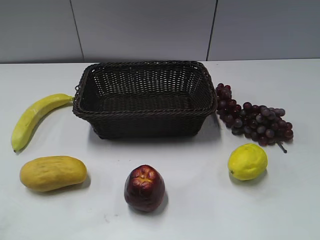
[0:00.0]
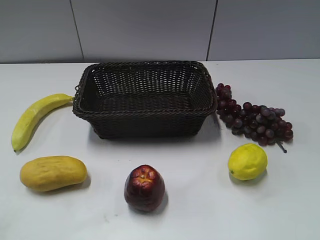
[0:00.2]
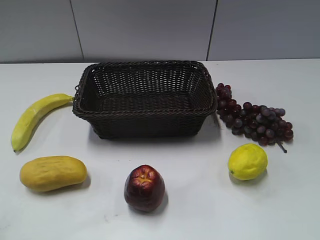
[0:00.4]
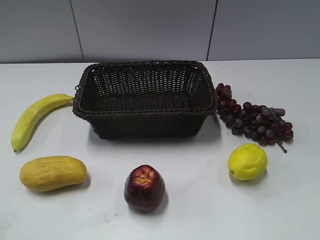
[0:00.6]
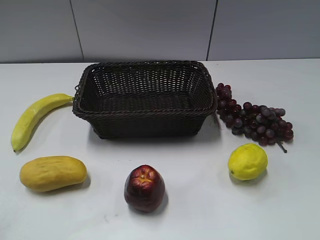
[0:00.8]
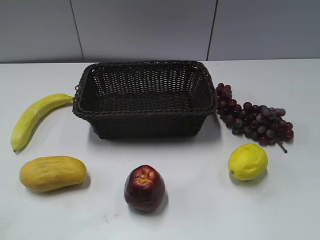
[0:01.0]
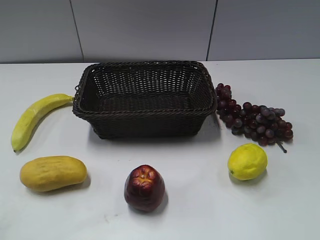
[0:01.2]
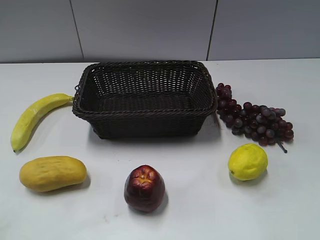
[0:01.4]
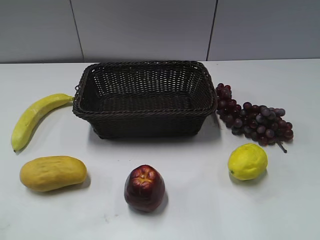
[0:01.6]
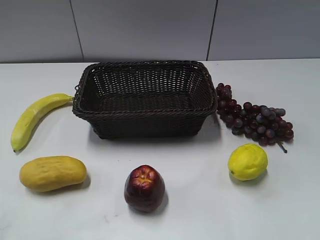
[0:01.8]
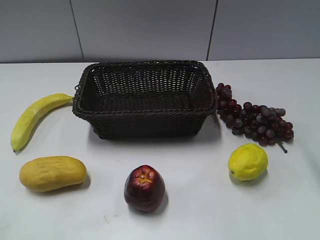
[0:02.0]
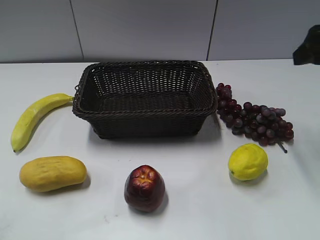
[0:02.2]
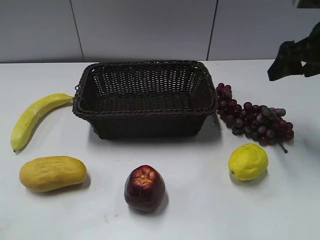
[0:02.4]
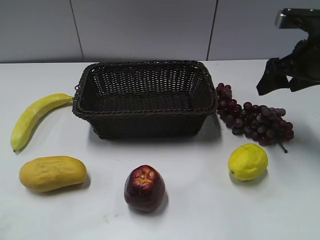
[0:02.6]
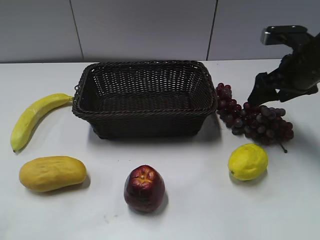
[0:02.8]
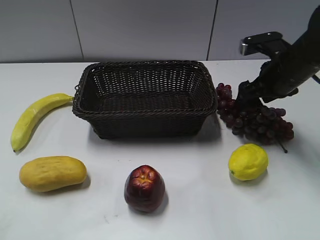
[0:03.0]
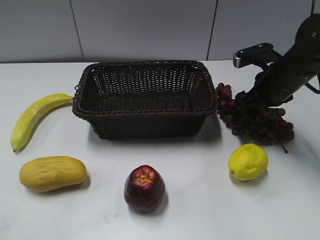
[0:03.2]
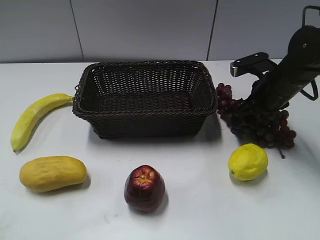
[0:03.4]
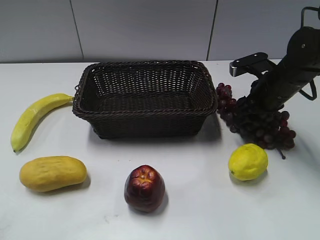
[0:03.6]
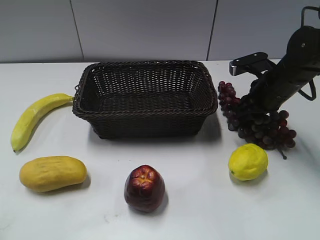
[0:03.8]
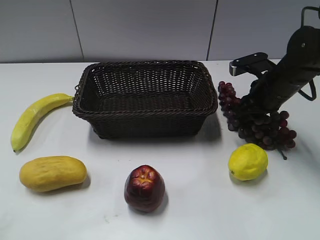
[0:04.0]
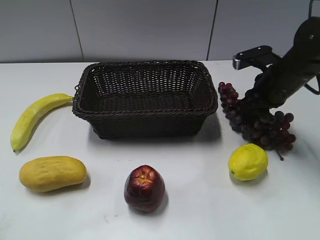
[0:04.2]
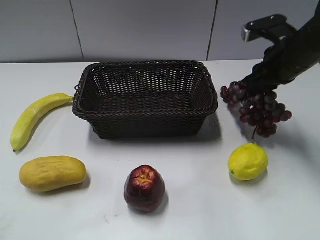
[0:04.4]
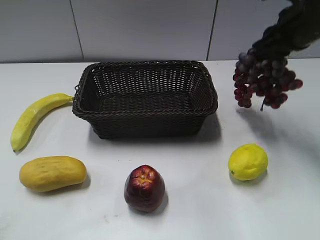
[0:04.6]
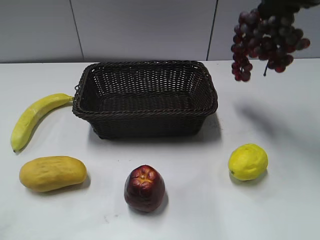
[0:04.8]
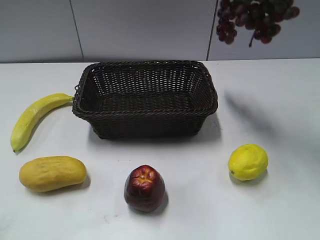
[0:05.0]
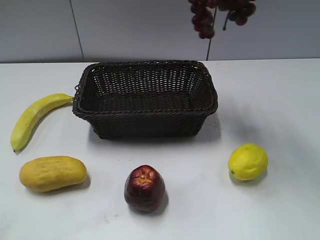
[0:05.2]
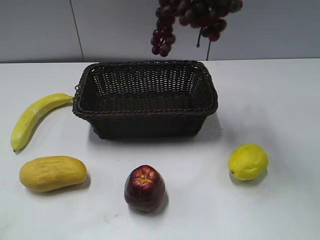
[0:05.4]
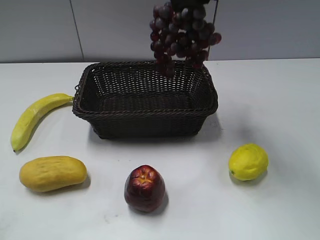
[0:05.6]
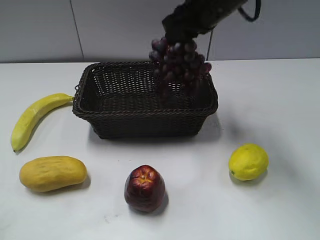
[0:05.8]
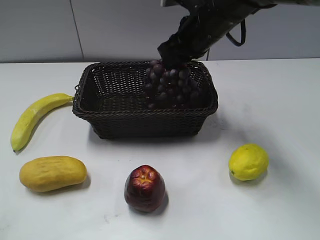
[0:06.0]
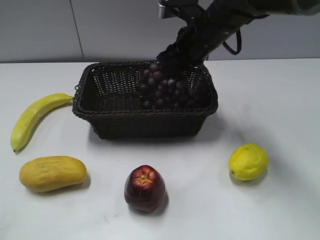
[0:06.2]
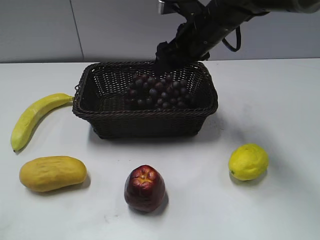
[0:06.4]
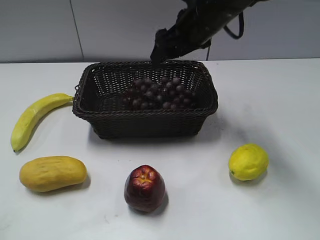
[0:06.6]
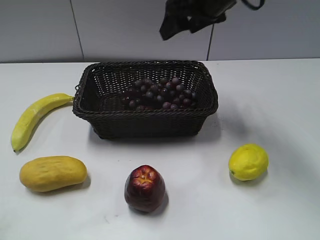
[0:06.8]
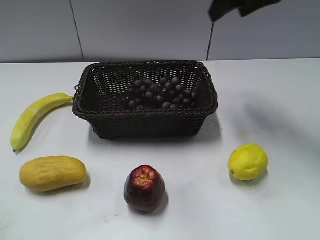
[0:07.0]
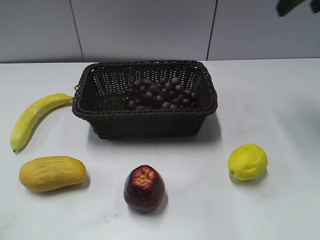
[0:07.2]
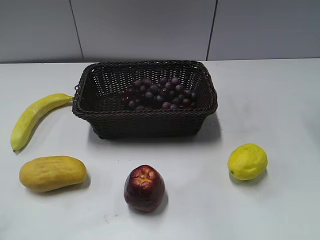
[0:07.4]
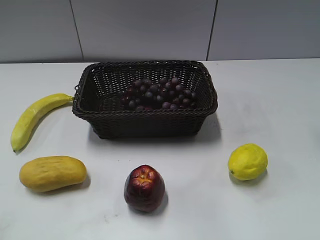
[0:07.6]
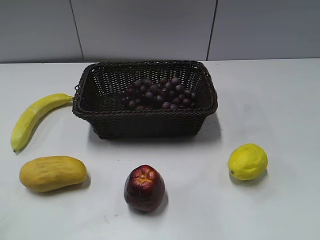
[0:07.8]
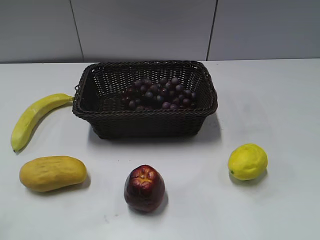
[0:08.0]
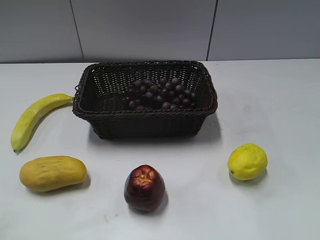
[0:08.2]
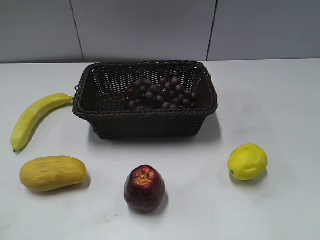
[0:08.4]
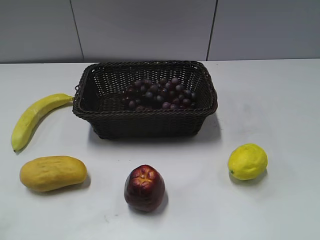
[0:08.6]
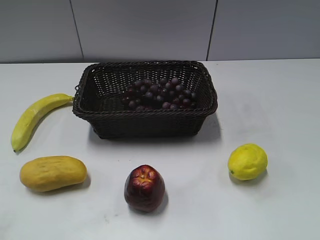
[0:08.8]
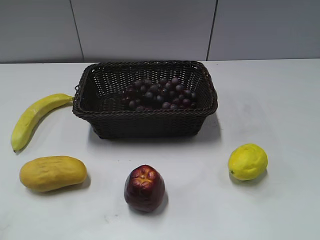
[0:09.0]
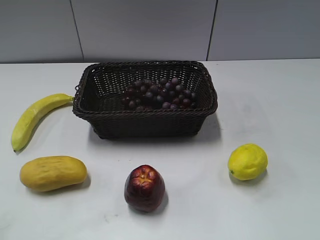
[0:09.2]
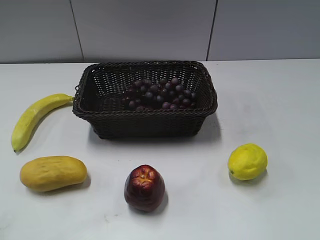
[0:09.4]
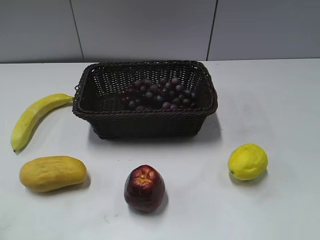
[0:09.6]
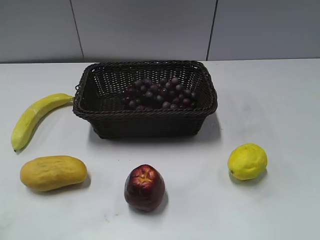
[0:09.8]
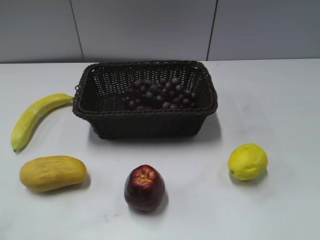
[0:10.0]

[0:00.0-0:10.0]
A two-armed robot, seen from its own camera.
Step, 0:02.2 to 0:03.6: Grasp the grape with right gripper.
Step, 0:03.8 to 0:06.4: Place the grape in the basket with right gripper.
0:01.4 to 0:02.8: The right gripper shifts some 35 cm forward and downward.
0:02.8 to 0:04.2: The right gripper closes up.
0:04.2 to 0:05.8: The right gripper heads to the left and upward, covering roughly 20 cm.
0:05.8 to 0:07.2: The right gripper heads to the right and upward, covering approximately 20 cm, and opens.
0:07.2 to 0:08.6: The right gripper heads backward, covering some 35 cm.

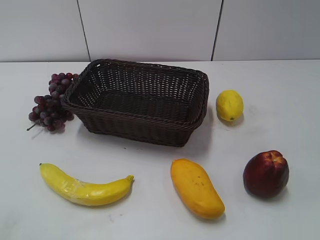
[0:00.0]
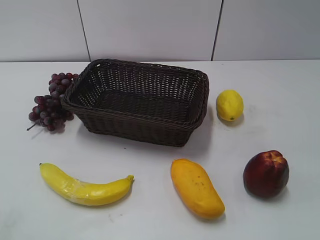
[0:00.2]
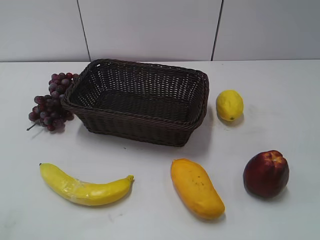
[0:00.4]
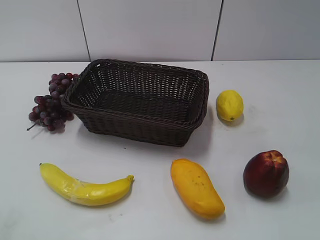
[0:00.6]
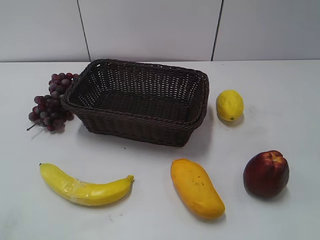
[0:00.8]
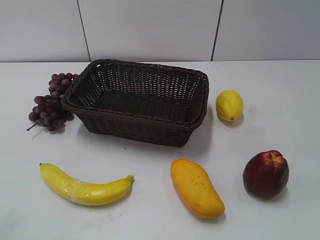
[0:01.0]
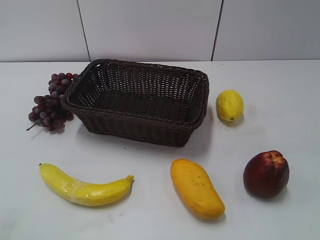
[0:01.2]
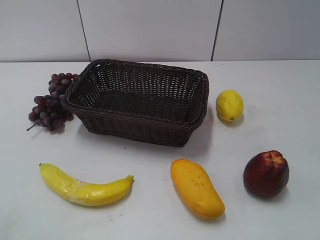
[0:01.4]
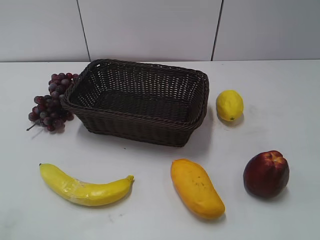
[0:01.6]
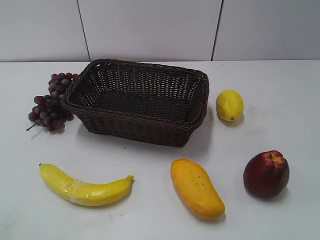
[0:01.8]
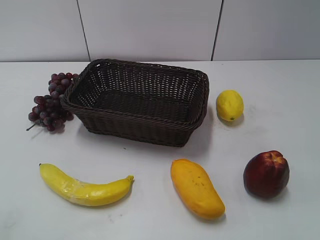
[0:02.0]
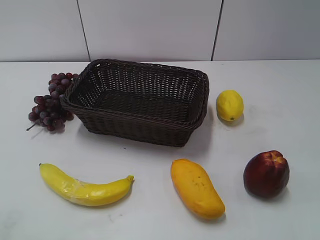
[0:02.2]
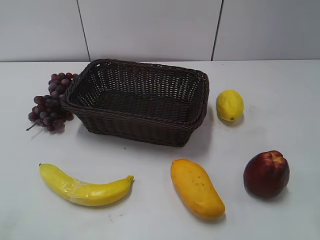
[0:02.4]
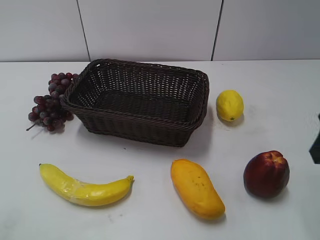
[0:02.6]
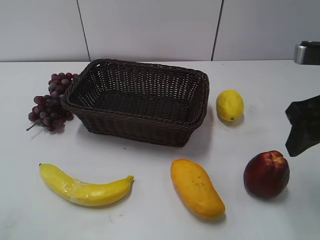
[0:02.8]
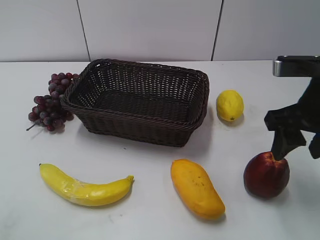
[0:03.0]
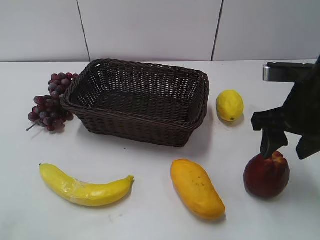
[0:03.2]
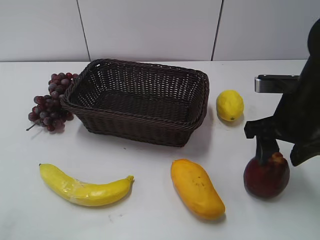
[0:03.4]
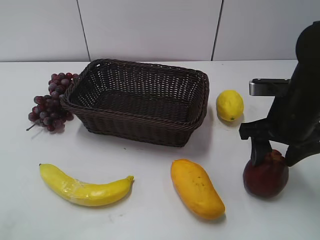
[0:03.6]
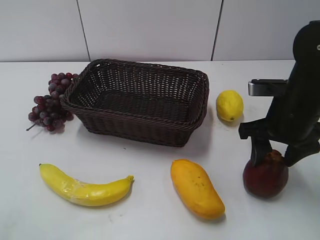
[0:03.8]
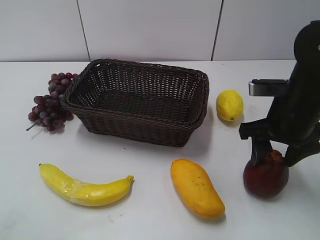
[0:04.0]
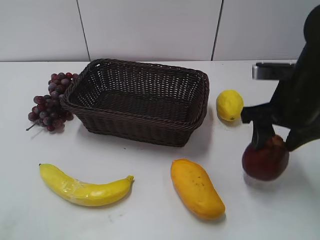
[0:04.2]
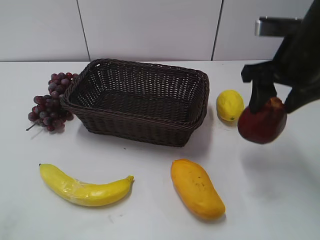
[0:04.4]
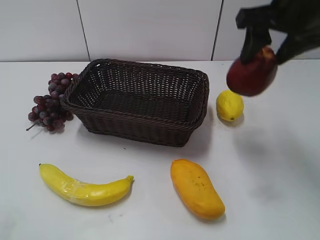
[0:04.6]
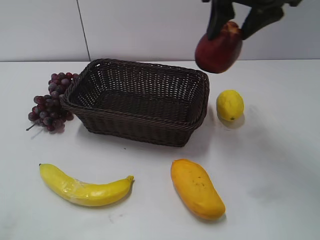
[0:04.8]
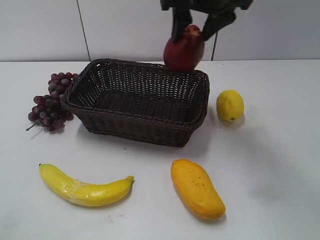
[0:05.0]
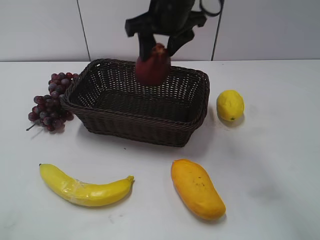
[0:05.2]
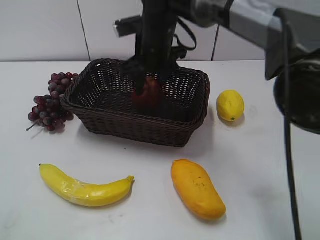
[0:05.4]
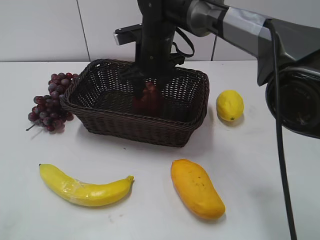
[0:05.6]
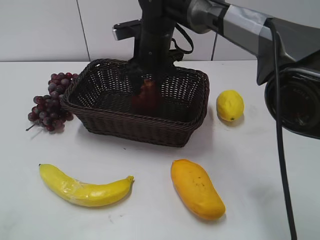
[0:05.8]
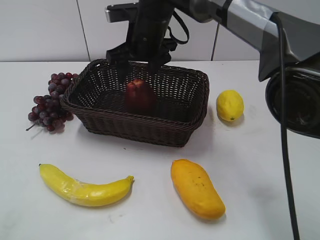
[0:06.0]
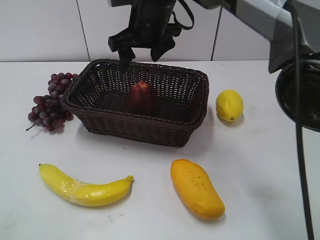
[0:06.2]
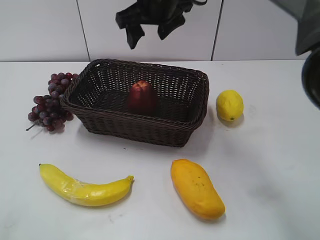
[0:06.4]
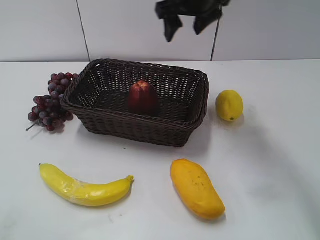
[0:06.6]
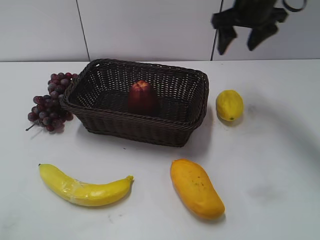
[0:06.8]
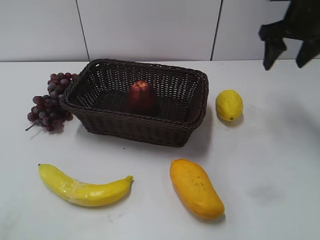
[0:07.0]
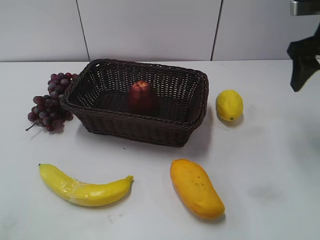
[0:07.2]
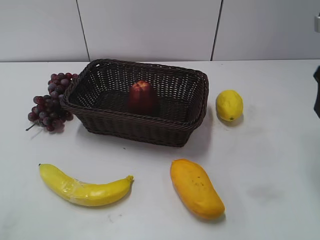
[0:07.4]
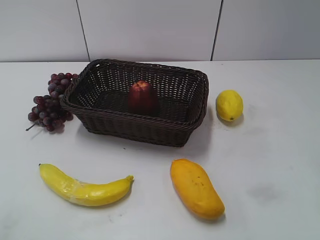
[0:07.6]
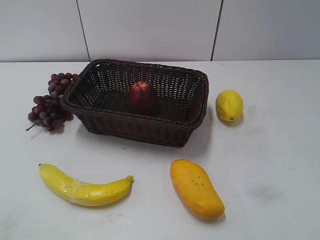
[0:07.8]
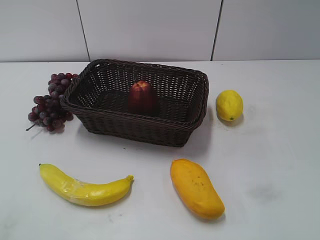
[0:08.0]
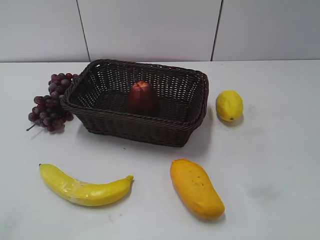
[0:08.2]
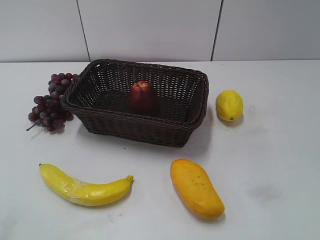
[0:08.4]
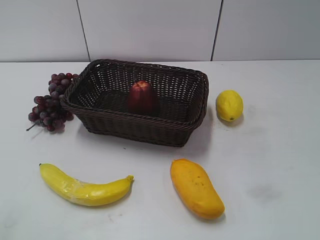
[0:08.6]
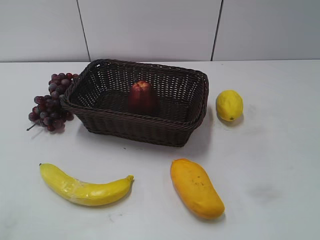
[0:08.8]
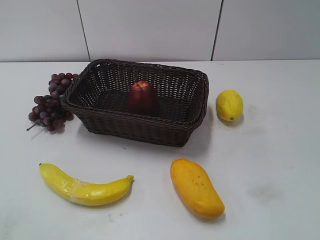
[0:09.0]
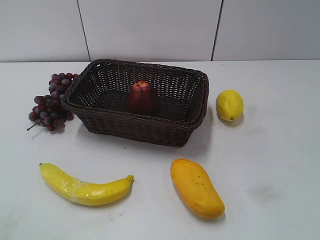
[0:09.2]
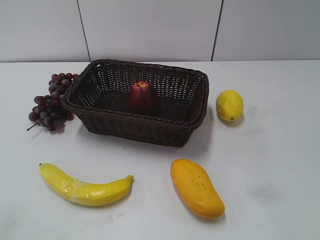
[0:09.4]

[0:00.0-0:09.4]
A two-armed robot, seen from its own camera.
Step, 0:02.6 to 0:03.6: Grasp the apple with right gripper.
Step, 0:03.8 to 0:05.6: Place the apple in the basket with right gripper.
0:01.6 to 0:03.2: The right gripper moves forward, downward and to the left, some 20 cm.
0:03.2 to 0:04.8: The right gripper is displaced upward, forward and to the left by roughly 20 cm.
0:04.8 to 0:06.2: The right gripper travels to the left, downward and forward by approximately 20 cm, and opens its fingers.
0:06.2 to 0:07.8: The right gripper shifts roughly 40 cm to the right and backward.
